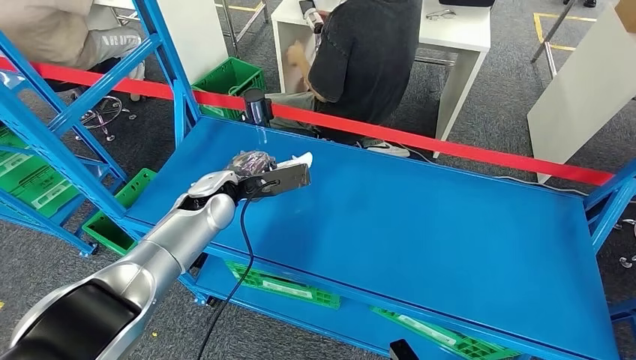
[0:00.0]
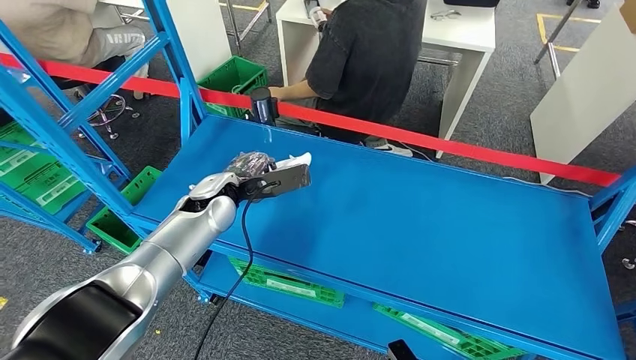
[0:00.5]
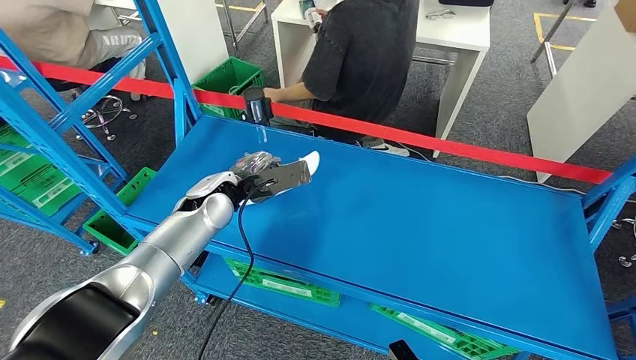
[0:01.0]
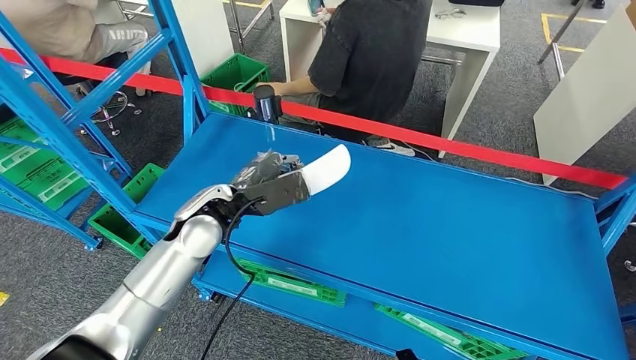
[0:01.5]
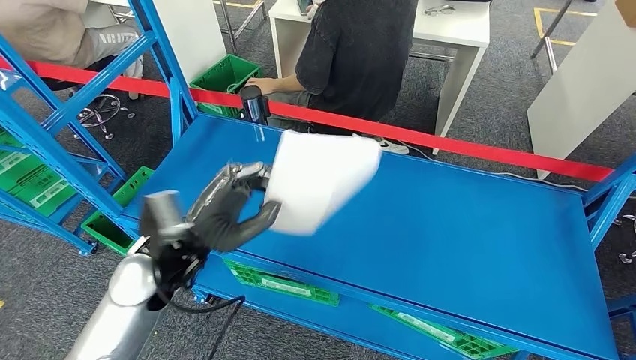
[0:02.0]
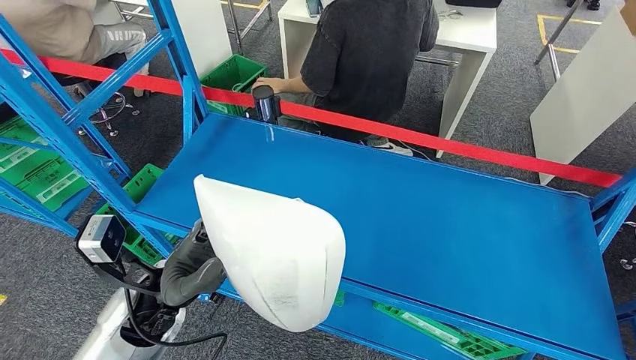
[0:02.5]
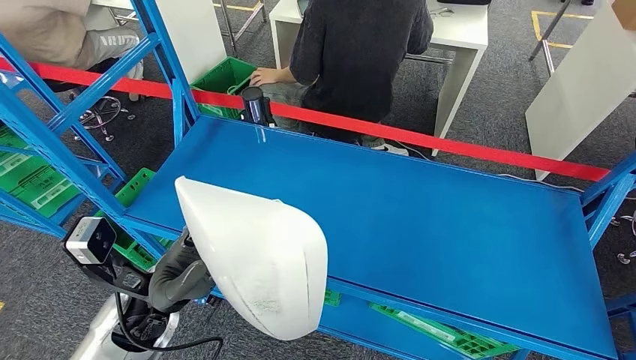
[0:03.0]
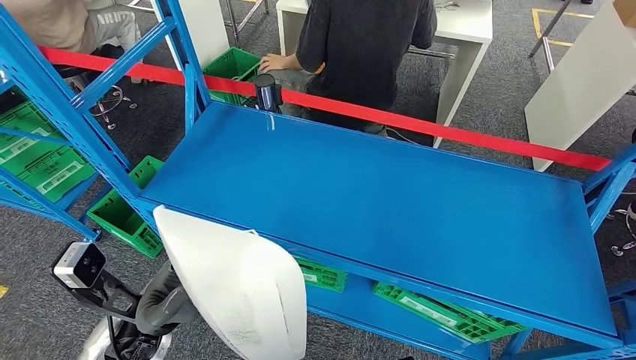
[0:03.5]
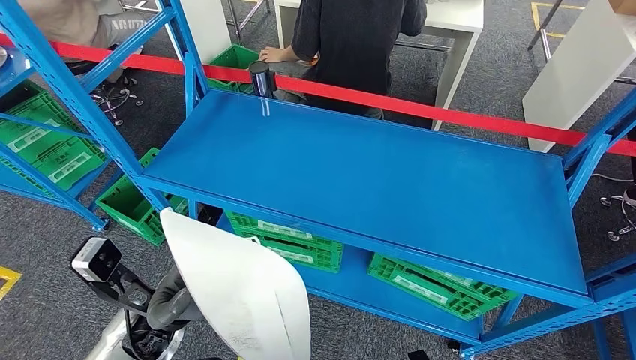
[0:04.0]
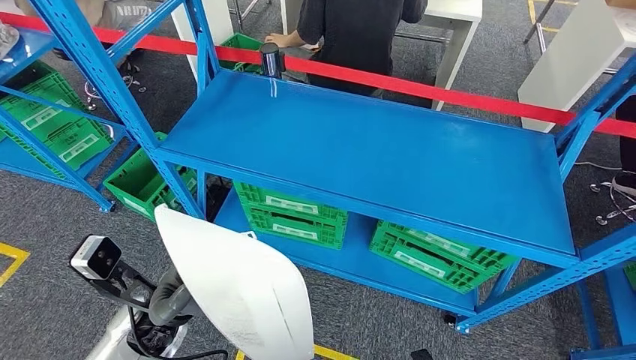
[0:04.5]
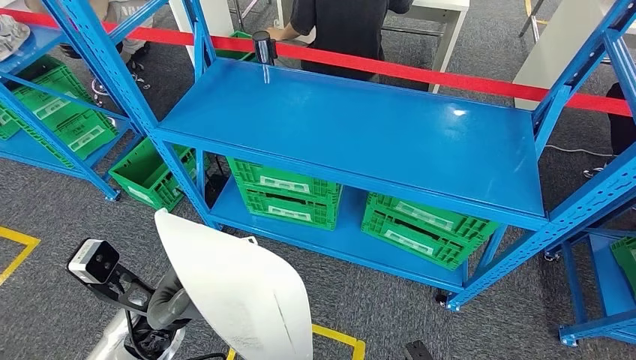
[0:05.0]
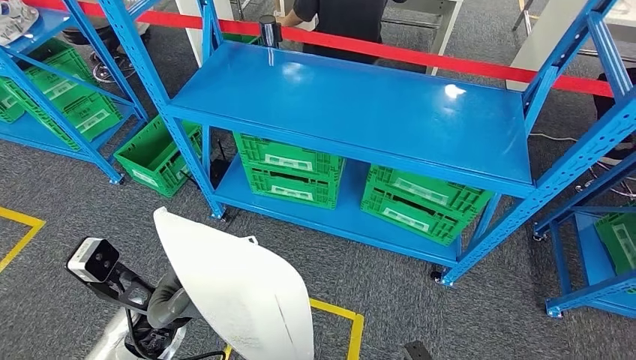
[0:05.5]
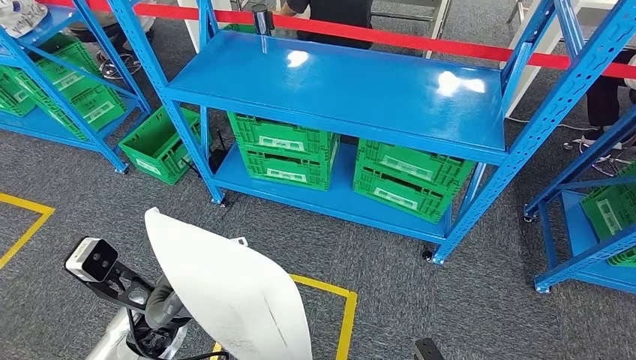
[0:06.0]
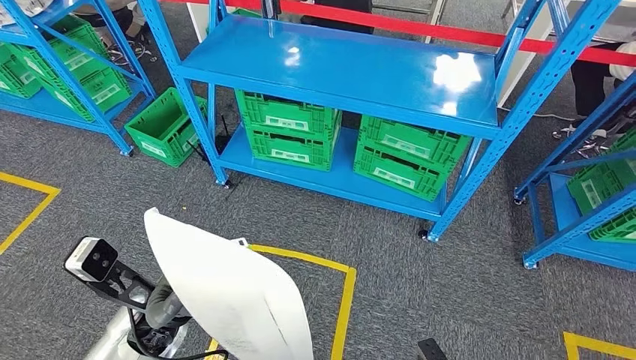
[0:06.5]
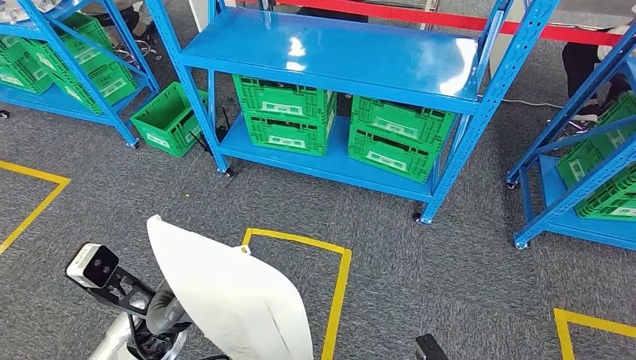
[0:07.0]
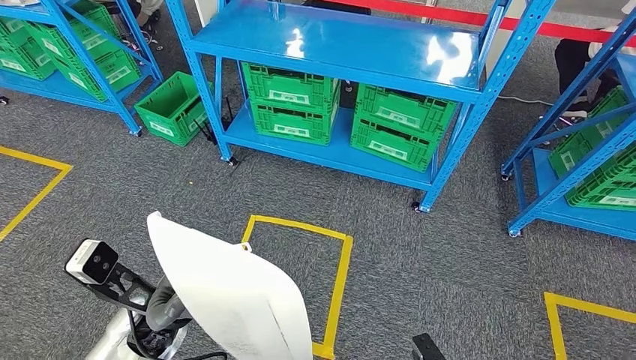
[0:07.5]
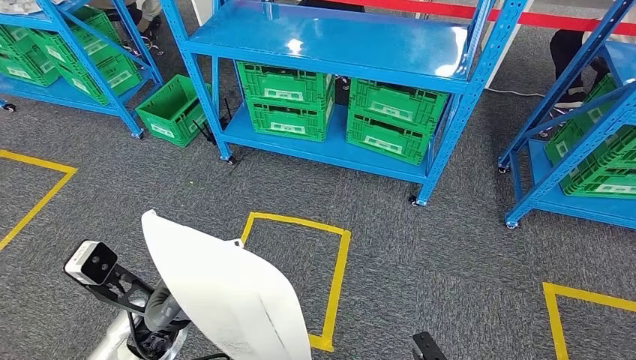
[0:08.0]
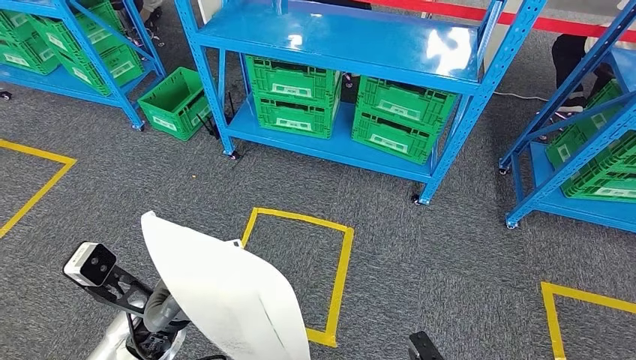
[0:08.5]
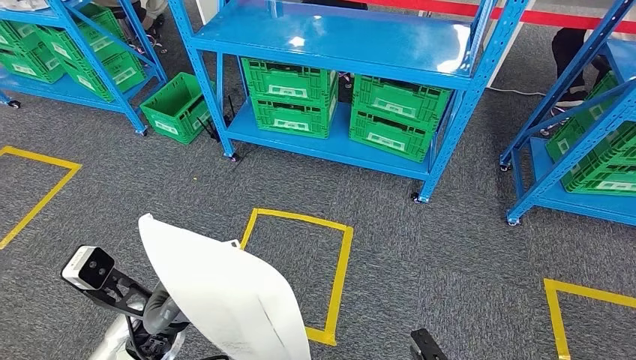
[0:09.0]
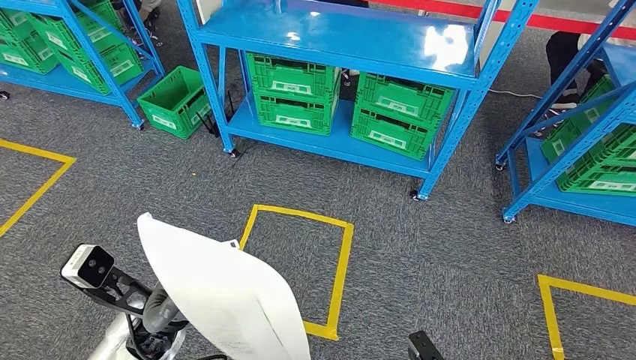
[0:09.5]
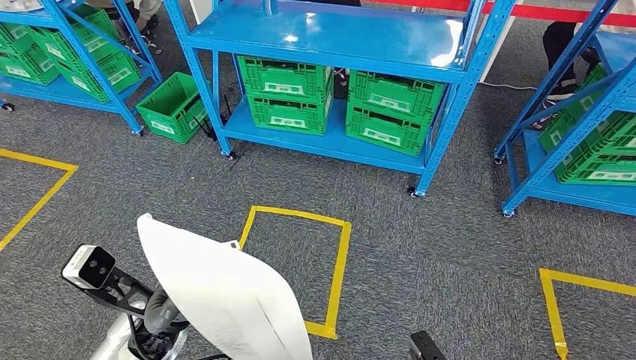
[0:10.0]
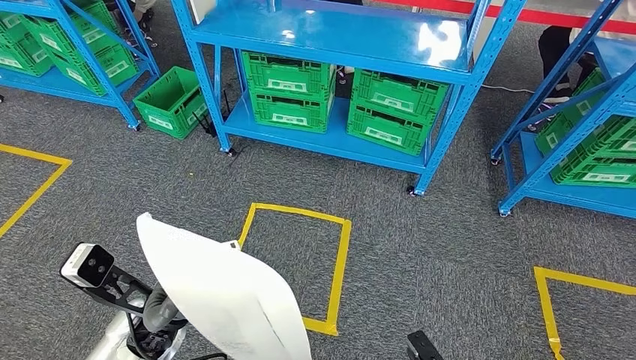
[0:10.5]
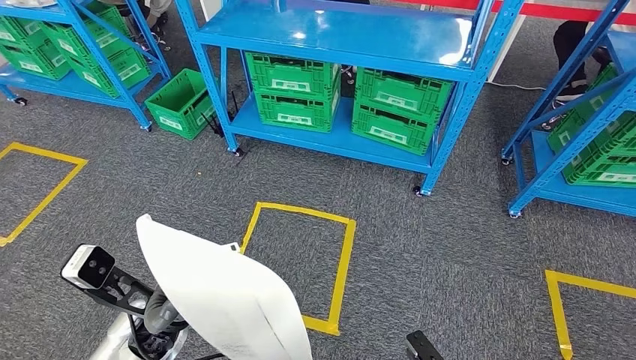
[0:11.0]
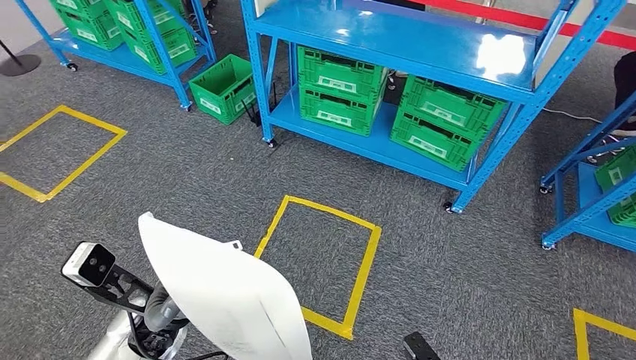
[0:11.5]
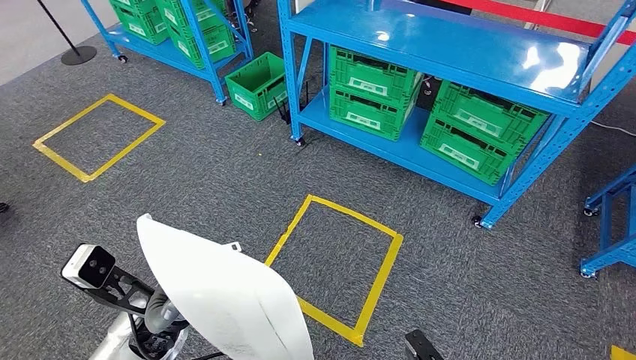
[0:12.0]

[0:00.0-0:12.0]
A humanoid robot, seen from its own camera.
0:08.0 to 0:10.0: Neither hand changes place.

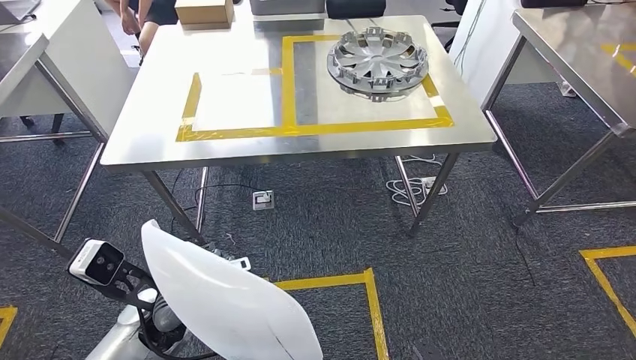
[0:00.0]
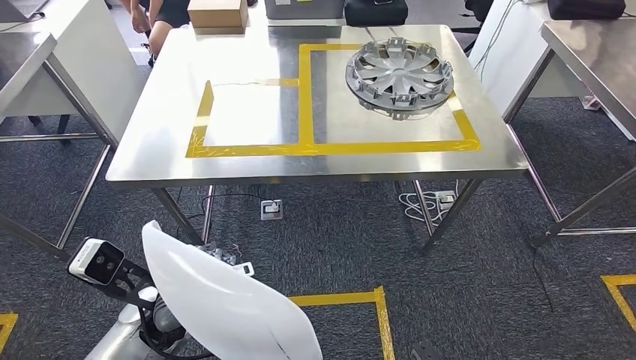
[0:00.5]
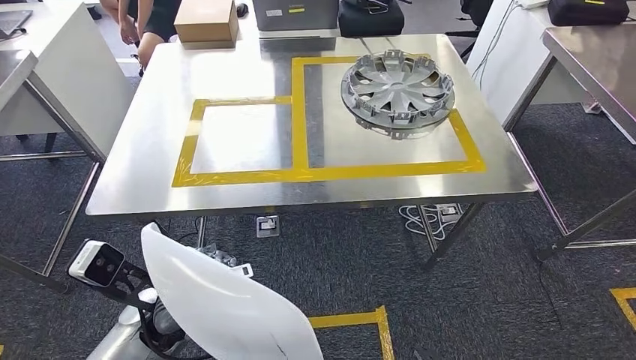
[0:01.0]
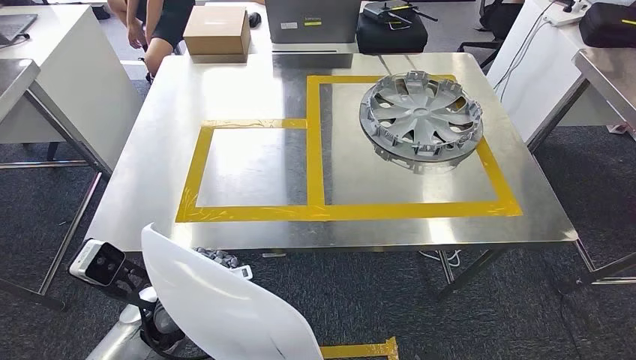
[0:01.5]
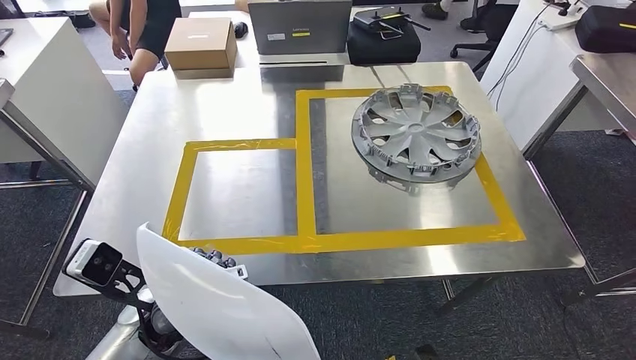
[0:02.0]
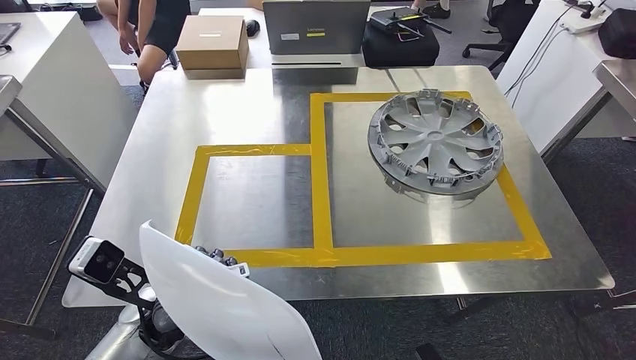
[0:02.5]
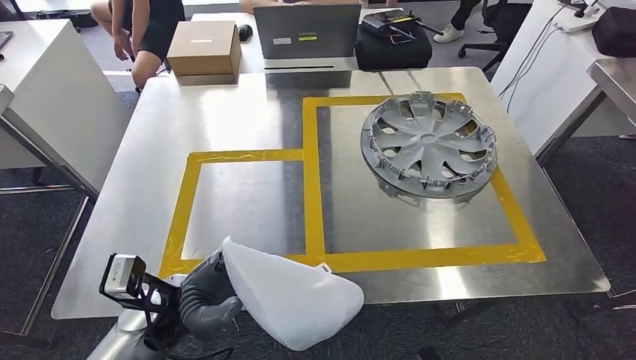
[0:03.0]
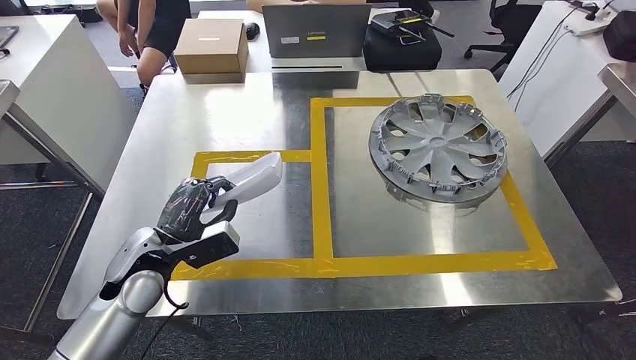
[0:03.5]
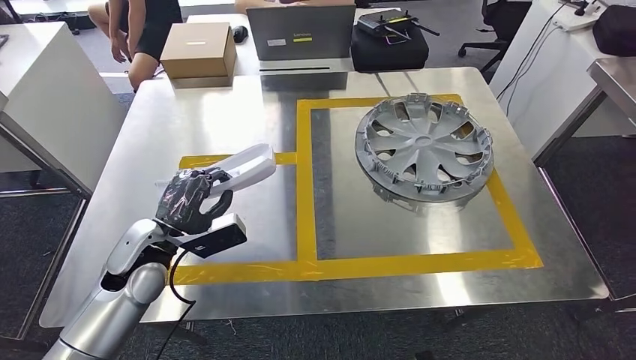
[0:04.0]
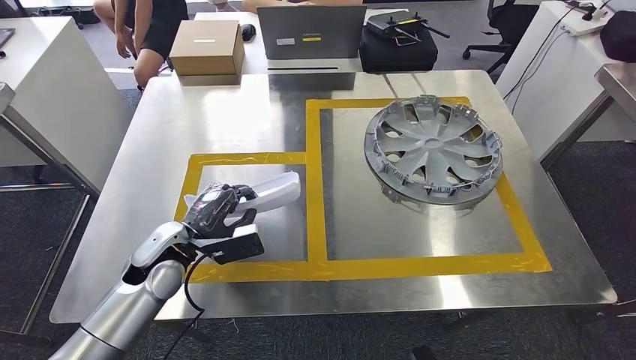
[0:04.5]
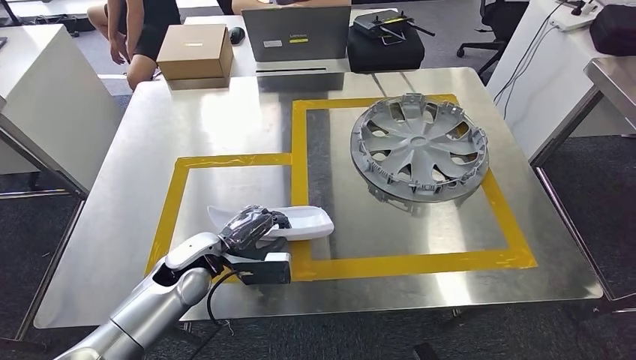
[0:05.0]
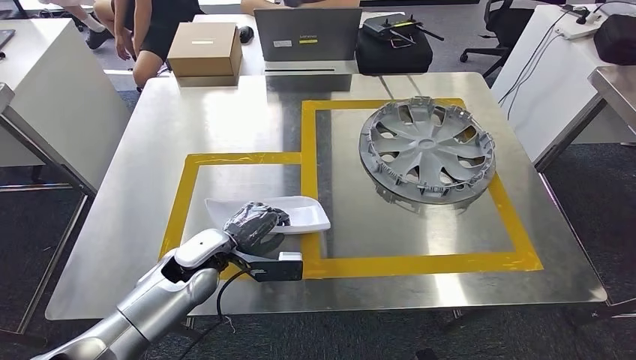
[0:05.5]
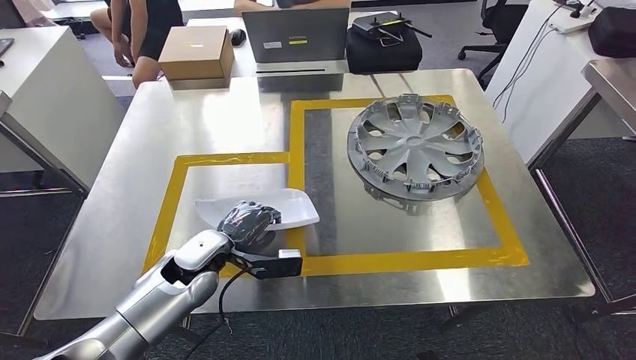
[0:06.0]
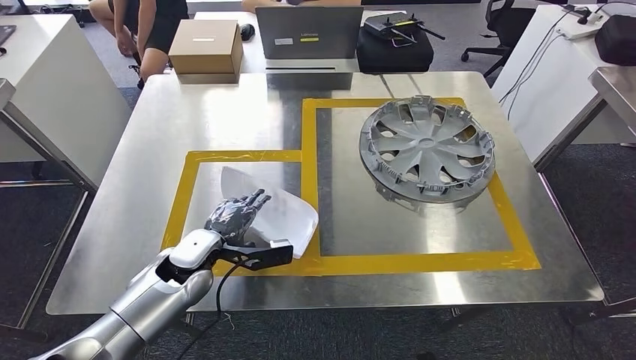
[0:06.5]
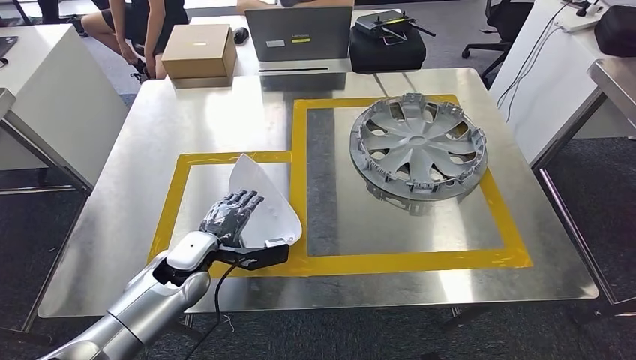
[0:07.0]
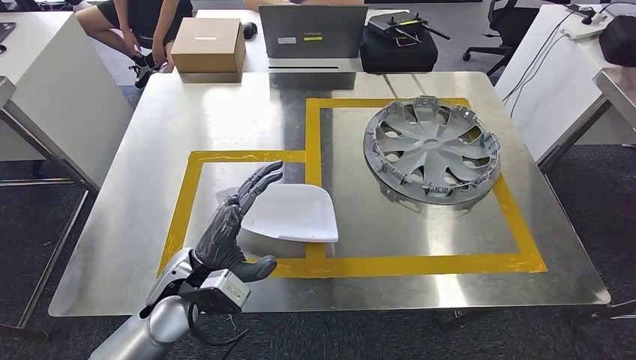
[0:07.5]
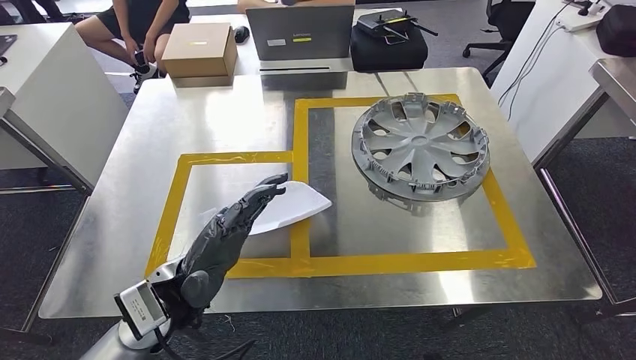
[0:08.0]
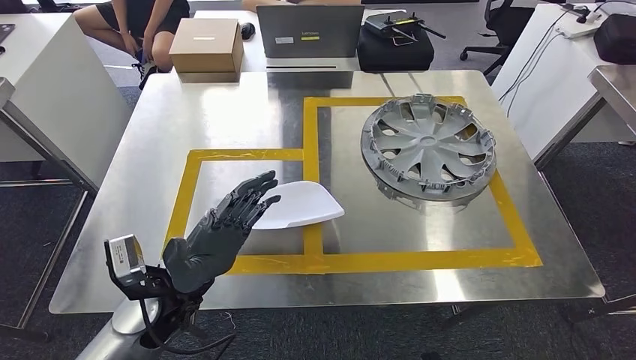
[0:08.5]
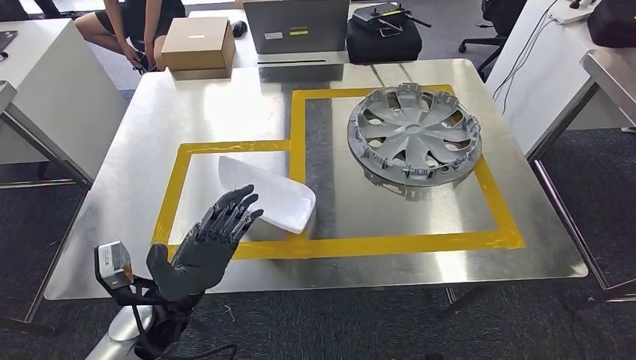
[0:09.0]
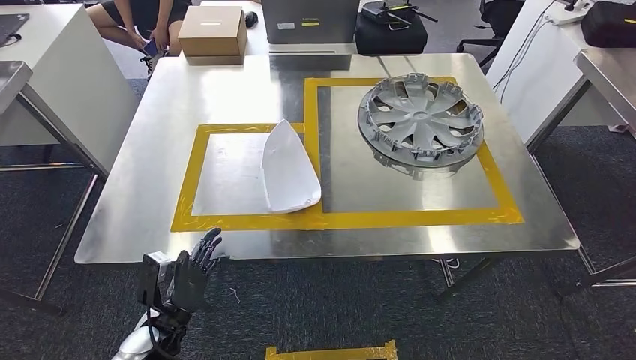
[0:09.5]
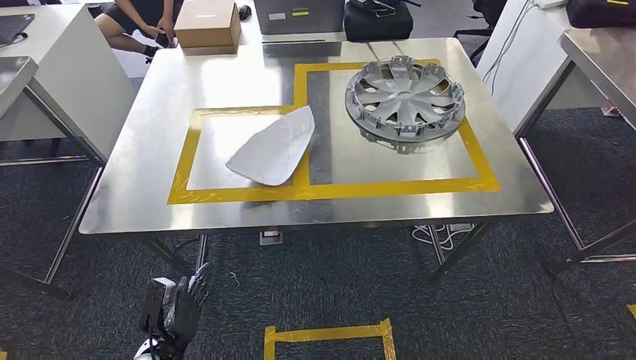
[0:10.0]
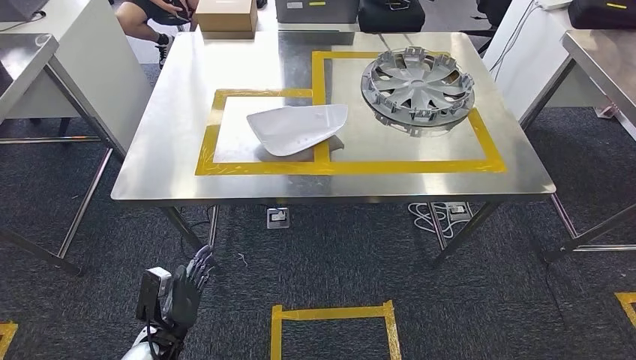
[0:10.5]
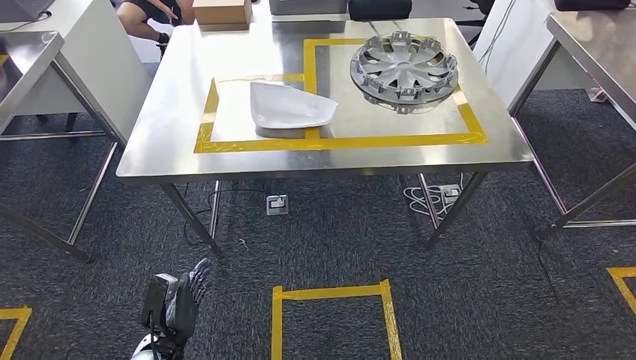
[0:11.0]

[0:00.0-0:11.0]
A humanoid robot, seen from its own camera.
Step, 0:00.0 to 0:02.0: Move the small parts to the workbench.
Step, 0:02.5 to 0:07.5: Insert the small parts into the corresponding holes on the workbench.
